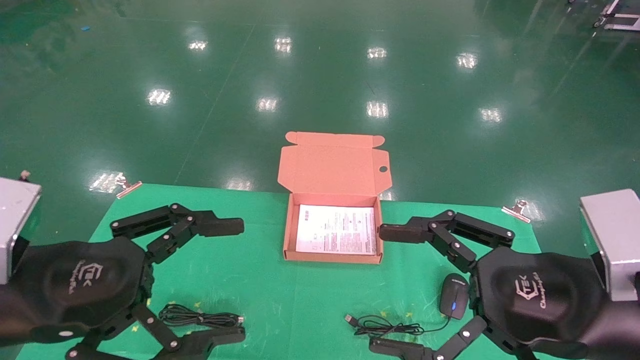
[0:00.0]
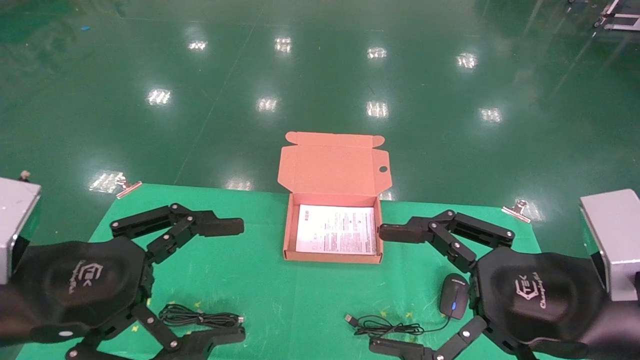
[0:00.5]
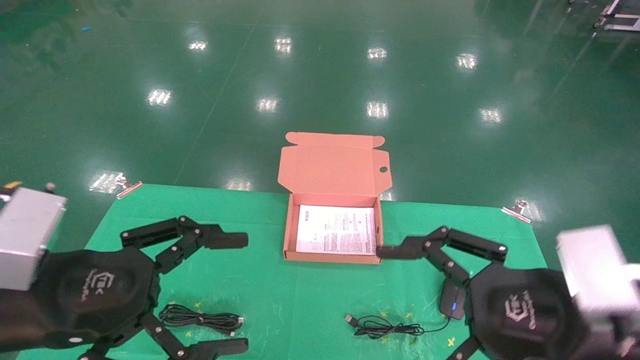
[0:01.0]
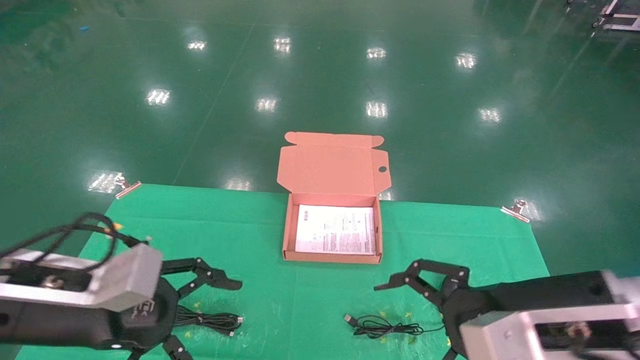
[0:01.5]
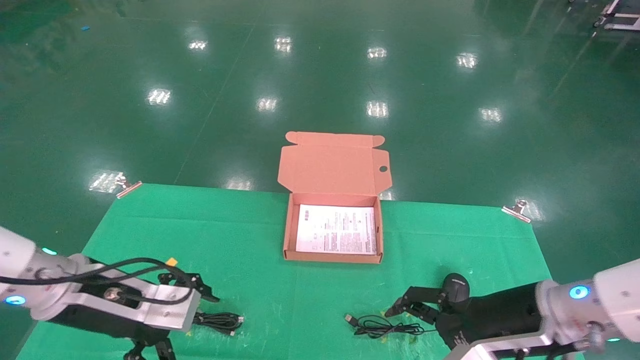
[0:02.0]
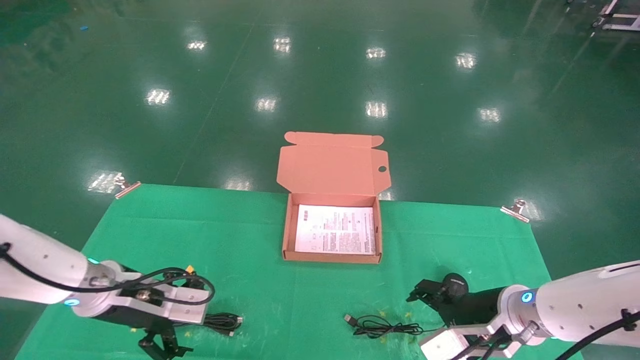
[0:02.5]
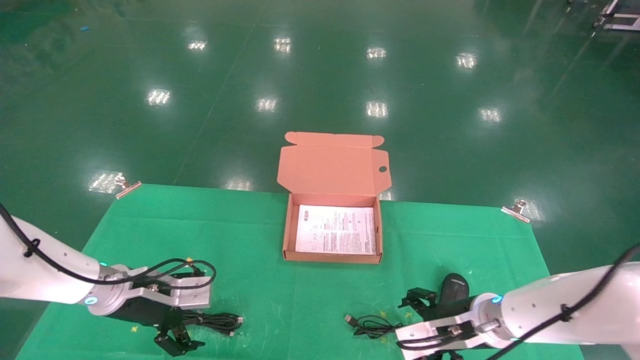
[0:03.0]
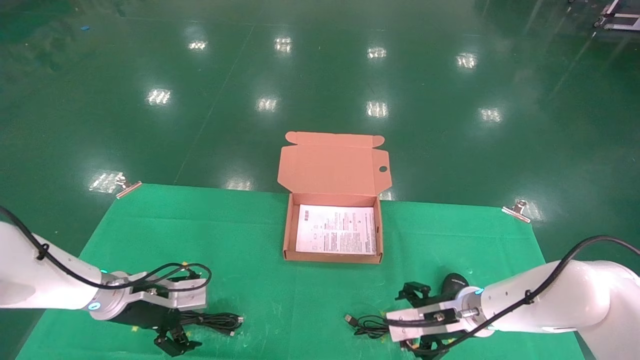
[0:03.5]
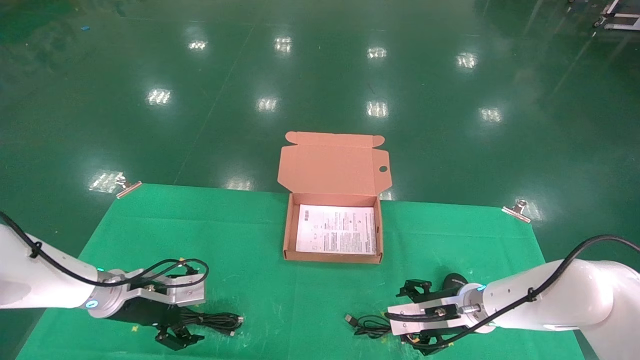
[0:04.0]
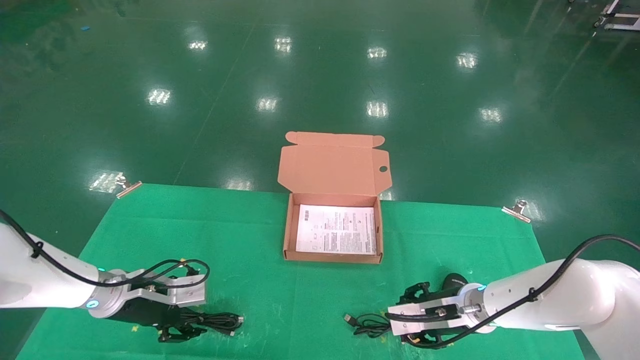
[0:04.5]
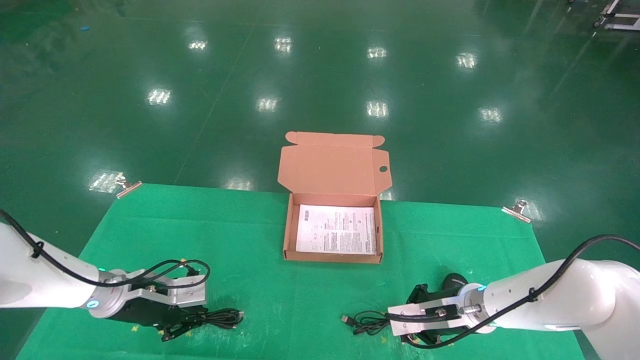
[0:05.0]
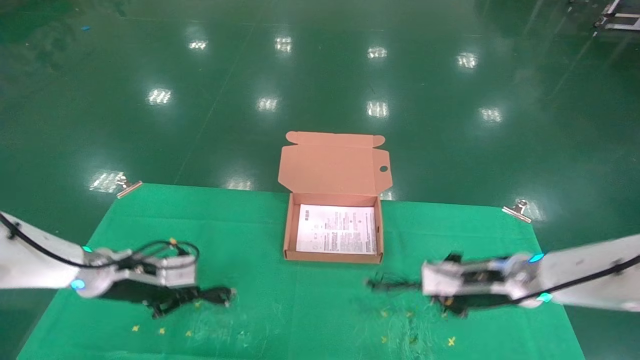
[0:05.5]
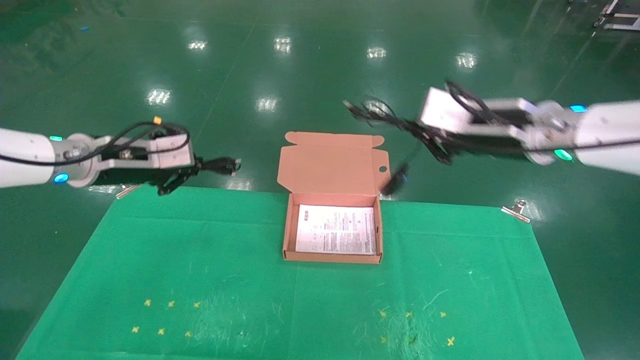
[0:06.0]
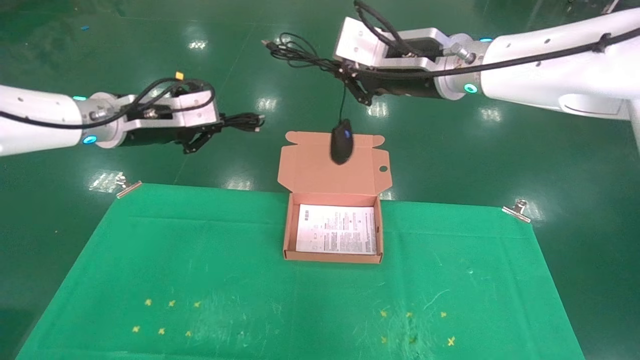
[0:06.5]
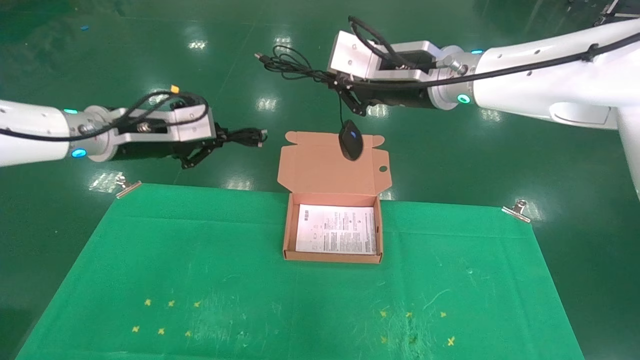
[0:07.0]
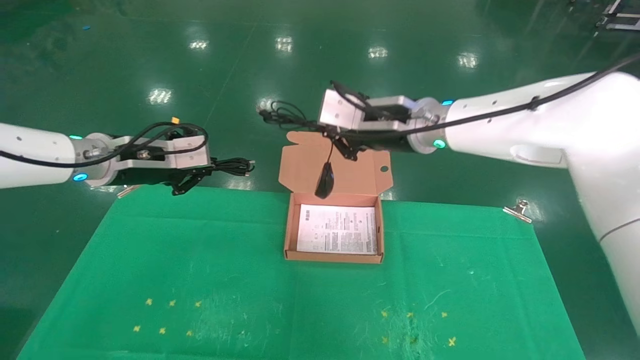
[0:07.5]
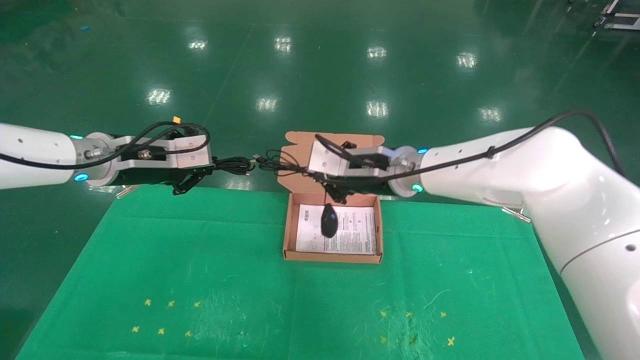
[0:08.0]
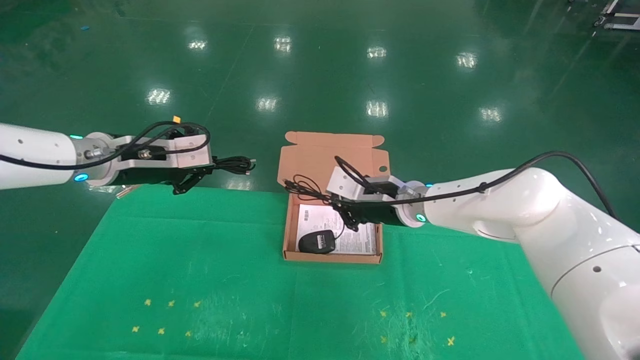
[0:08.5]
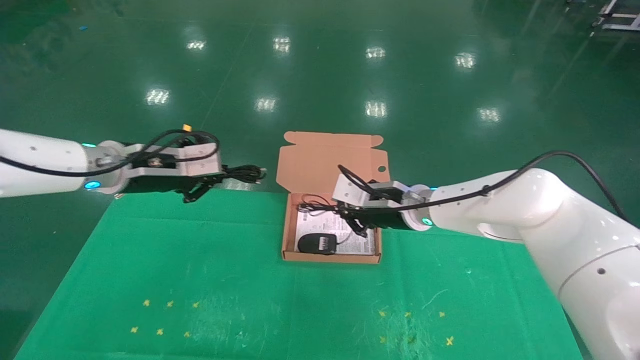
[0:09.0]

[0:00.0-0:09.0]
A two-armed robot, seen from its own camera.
Task of the whole recording: grasp data cable left put into box grasp mouse right put into box.
Step, 0:01.0 to 0:05.0: Grab and pick up both the mouse and power cord from the accessory packaging area at the same time.
0:00.0 to 0:02.0: The grippers both shift forward and downward by some 15 cm.
0:02.0 to 0:04.5: The grippers both shift forward and downward by some 15 cm. The left gripper closes up, while the right gripper closes.
0:04.5 to 0:07.0: The two grippers go some 30 cm upward. The left gripper closes up; the right gripper closes.
0:07.0 to 0:09.0: The right gripper goes roughly 20 cm downward, while the left gripper shifts about 5 cm downward.

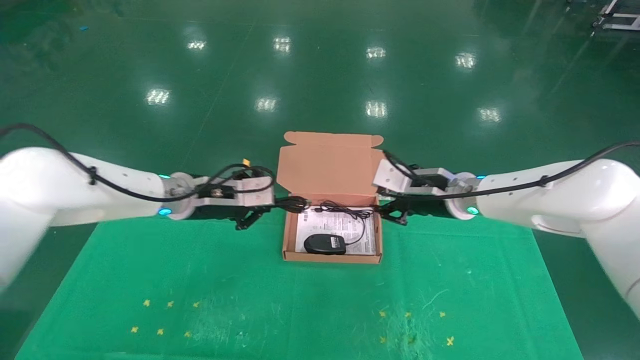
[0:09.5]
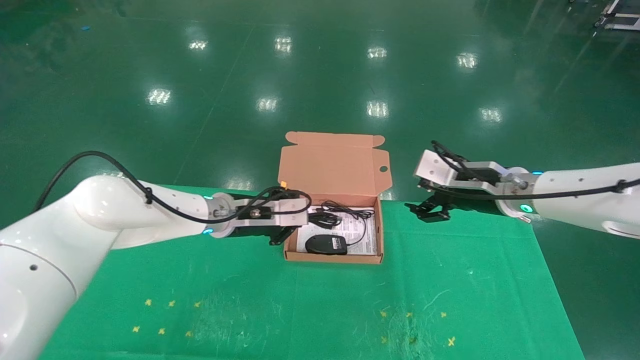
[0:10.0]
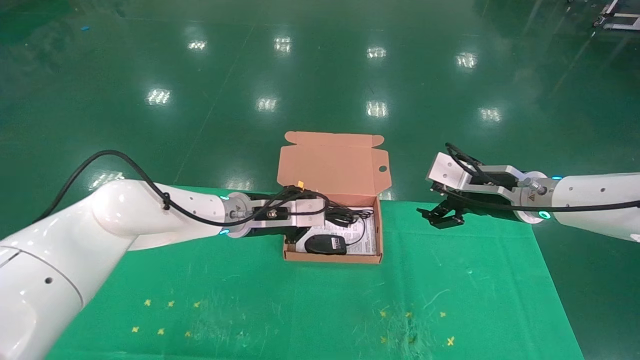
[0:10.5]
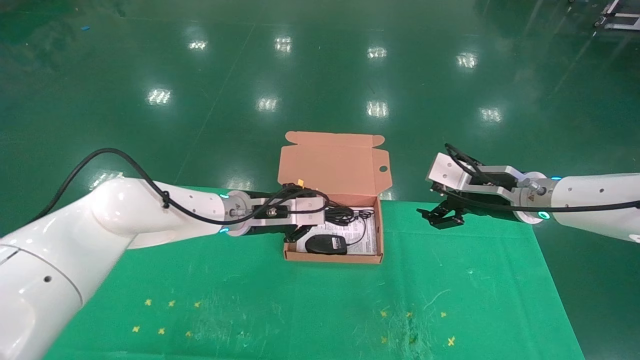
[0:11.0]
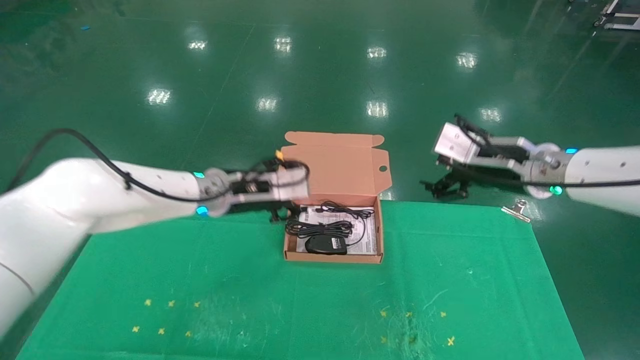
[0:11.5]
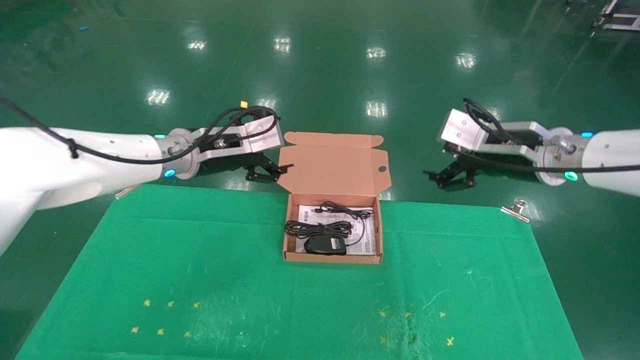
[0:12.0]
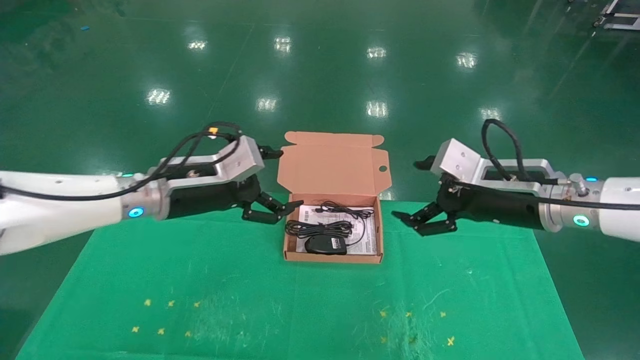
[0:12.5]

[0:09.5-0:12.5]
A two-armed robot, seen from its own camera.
Task of the whole recording: grasp data cable left put into box grasp mouse right put into box.
0:09.5 to 0:11.0: Both grippers move to the right, some 5 cm. The right gripper opens.
0:11.0 to 0:12.5: The left gripper moves to the left, backward and upward, approximately 10 cm, and opens its fingers; the right gripper moves backward, some 5 cm.
